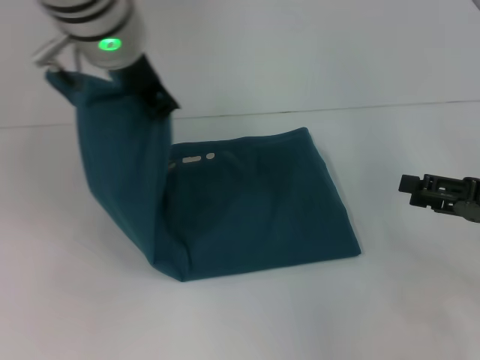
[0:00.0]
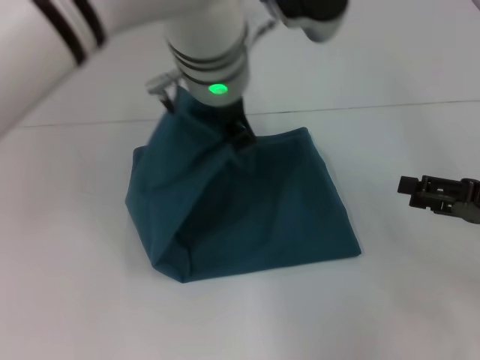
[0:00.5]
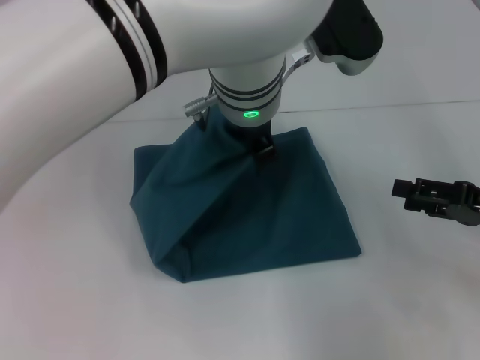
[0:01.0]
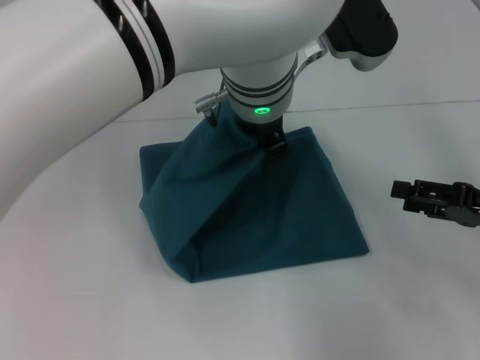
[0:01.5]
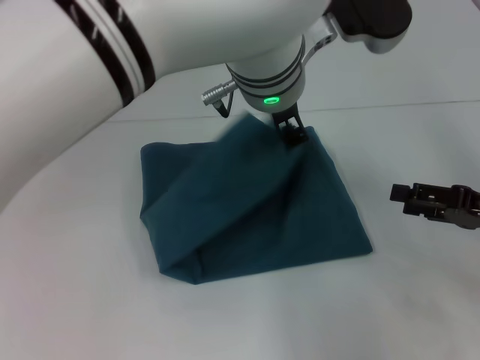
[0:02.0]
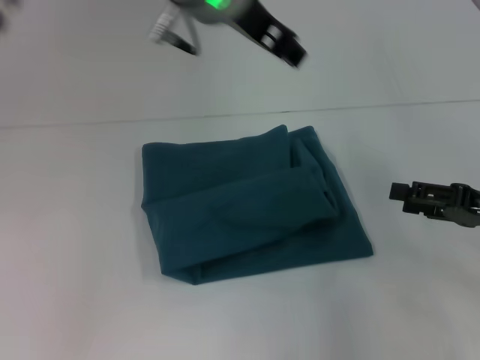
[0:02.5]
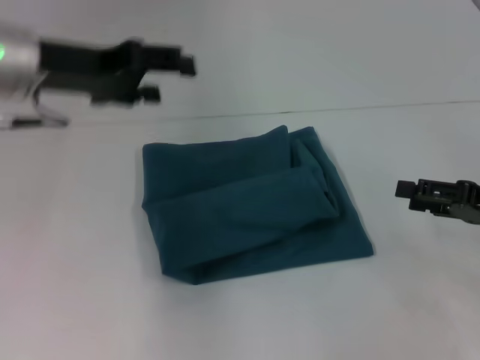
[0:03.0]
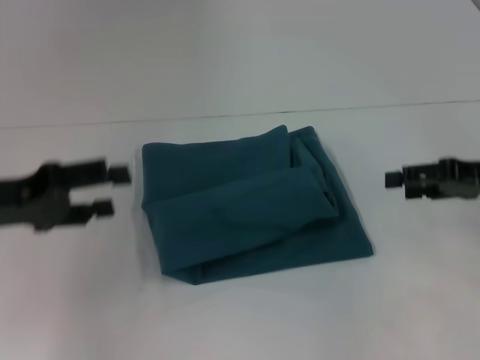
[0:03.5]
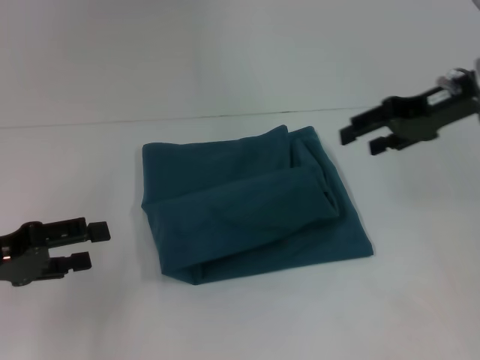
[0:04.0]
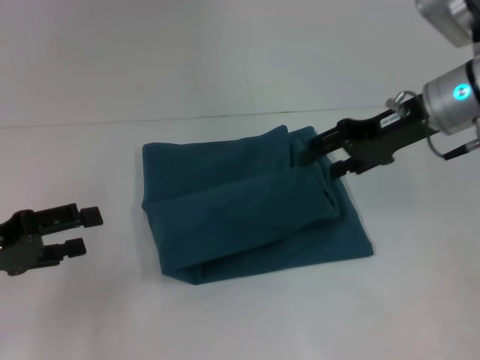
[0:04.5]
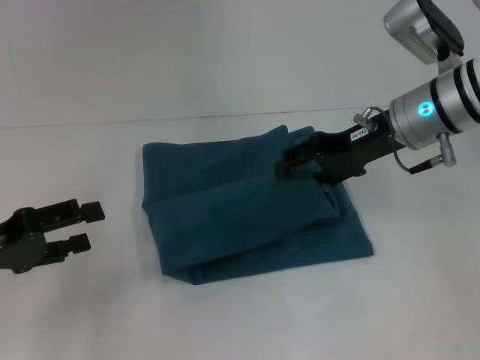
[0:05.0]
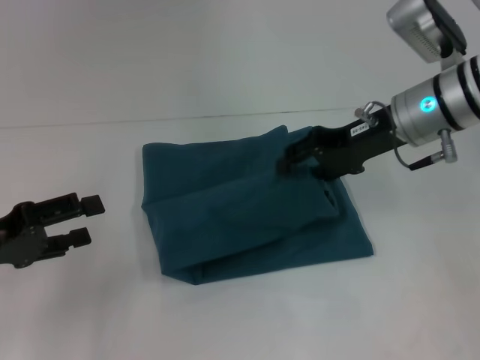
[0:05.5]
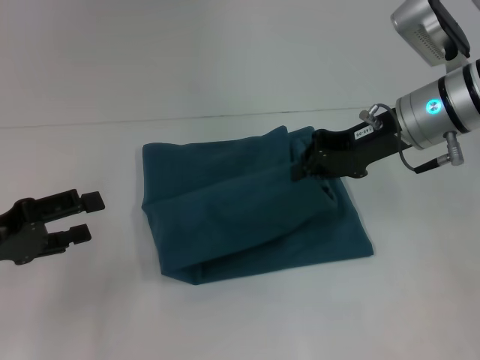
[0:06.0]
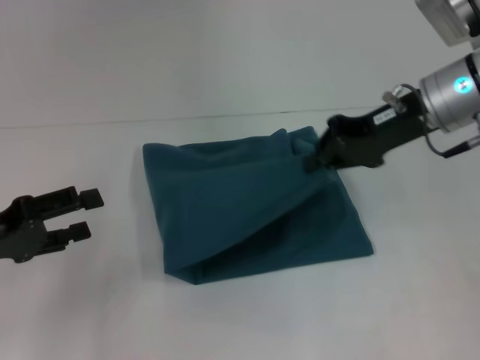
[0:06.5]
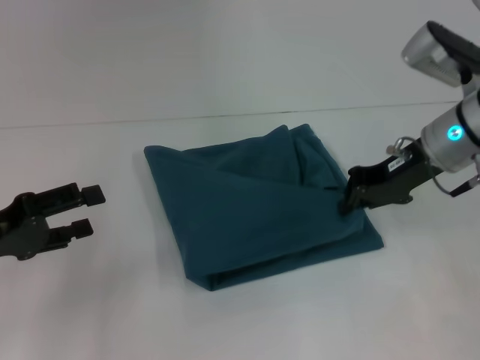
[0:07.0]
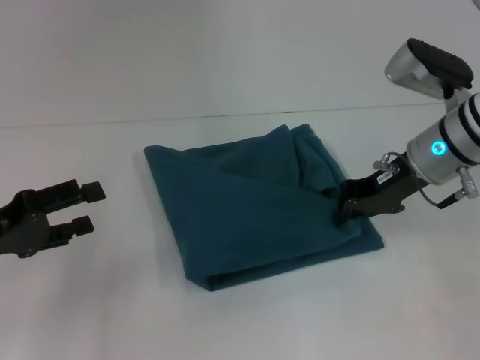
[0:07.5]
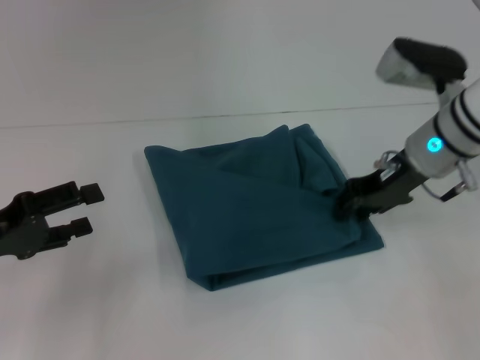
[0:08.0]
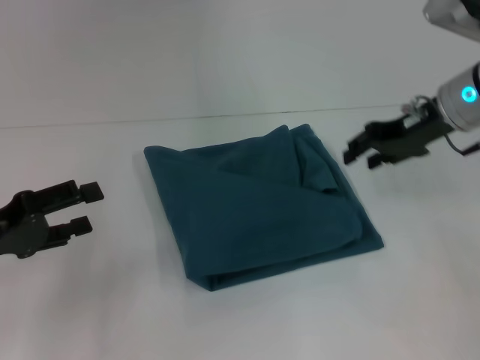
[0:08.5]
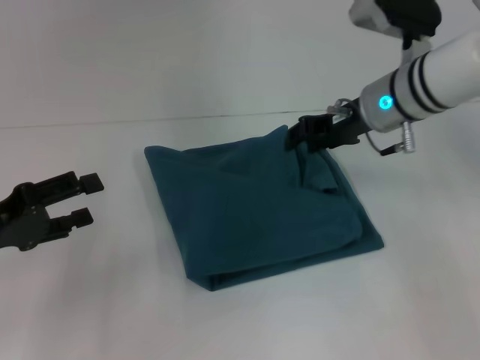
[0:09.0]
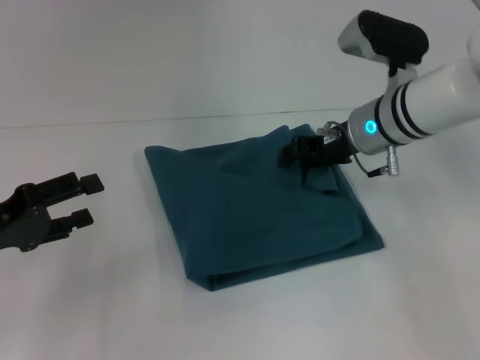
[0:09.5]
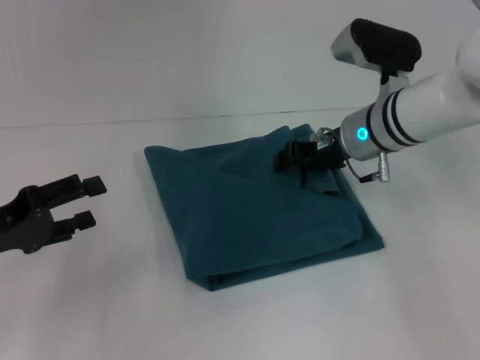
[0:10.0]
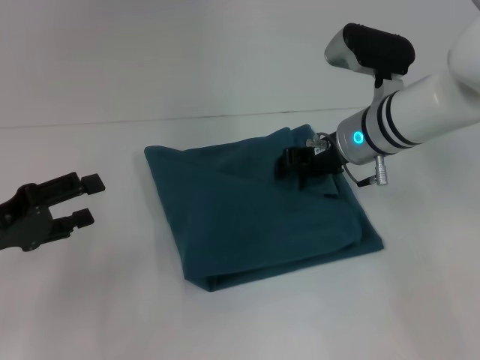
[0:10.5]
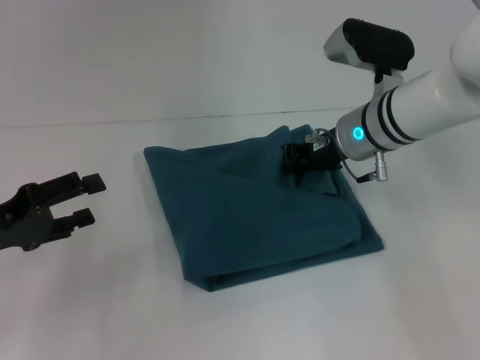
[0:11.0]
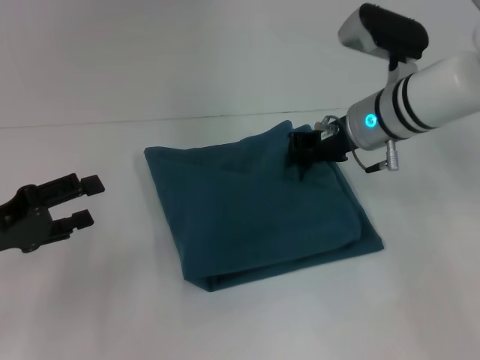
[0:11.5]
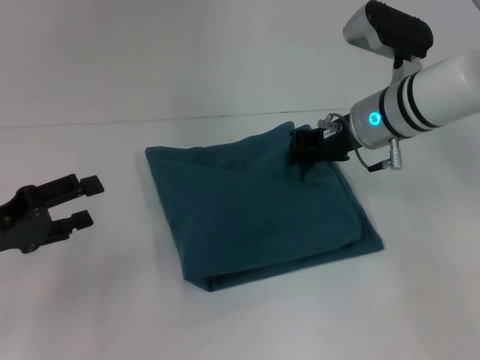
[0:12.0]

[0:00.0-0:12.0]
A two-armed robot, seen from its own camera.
Step, 0:00.0 to 0:02.0: Fold the clothes to the left.
0:00.0 to 0:02.0: The left gripper heads to the right, covering some 10 cm.
0:02.0 to 0:04.0: The right gripper travels upward, forward and to the left by roughly 20 cm; the left gripper heads to the left, covering approximately 35 cm, and opens up.
0:04.0 to 0:06.0: The right gripper travels to the left by roughly 5 cm, and closes.
0:08.0 to 0:10.0: The right gripper is displaced to the left by roughly 5 cm.
0:10.0 to 0:12.0: The right gripper closes up.

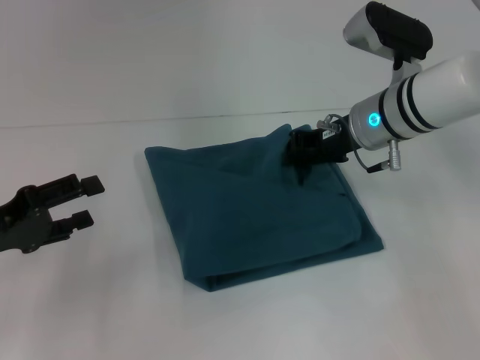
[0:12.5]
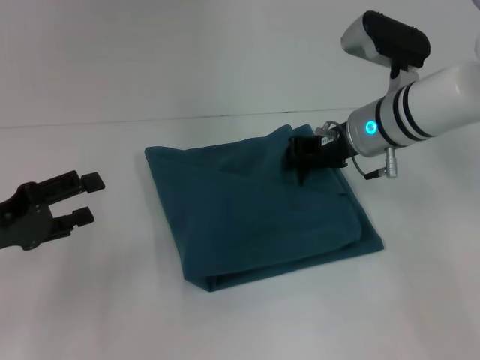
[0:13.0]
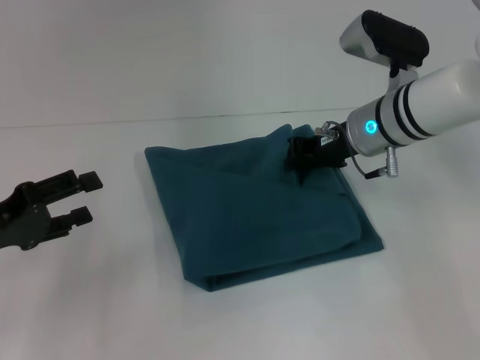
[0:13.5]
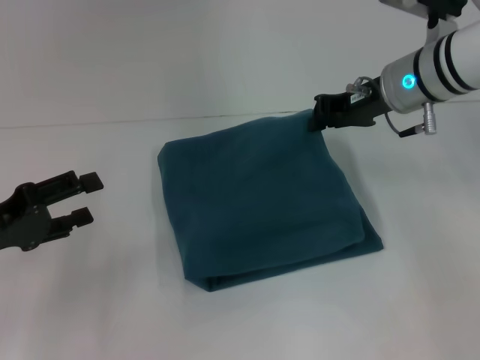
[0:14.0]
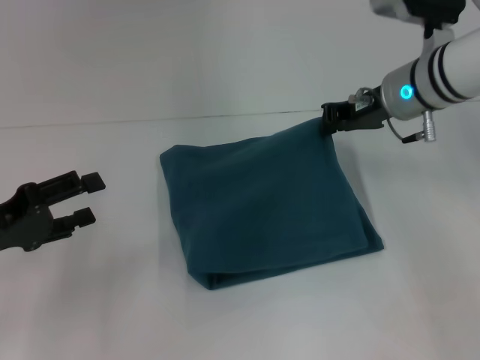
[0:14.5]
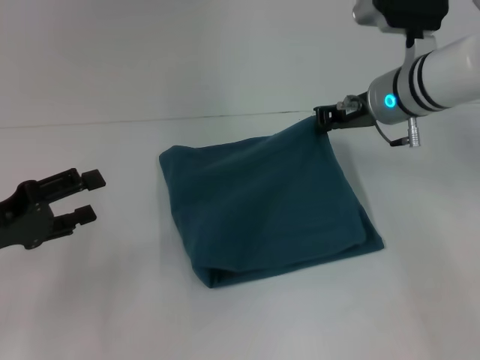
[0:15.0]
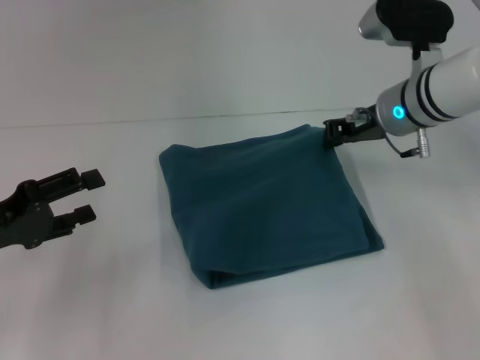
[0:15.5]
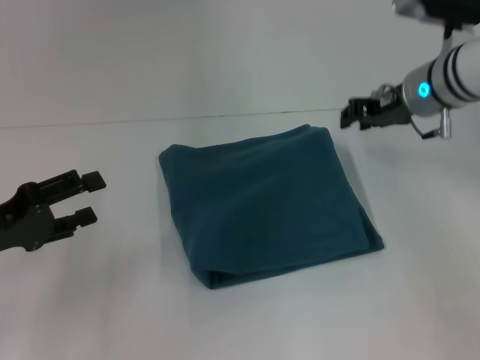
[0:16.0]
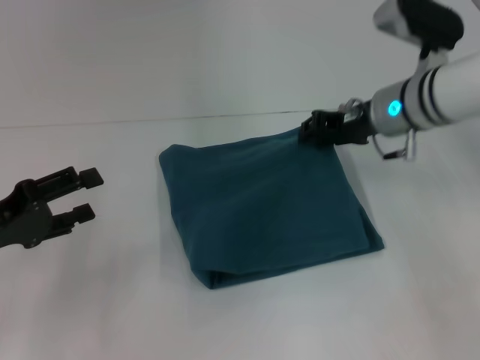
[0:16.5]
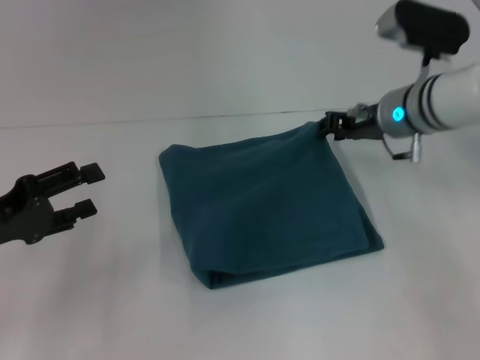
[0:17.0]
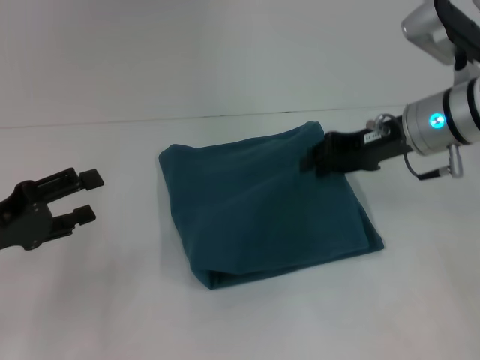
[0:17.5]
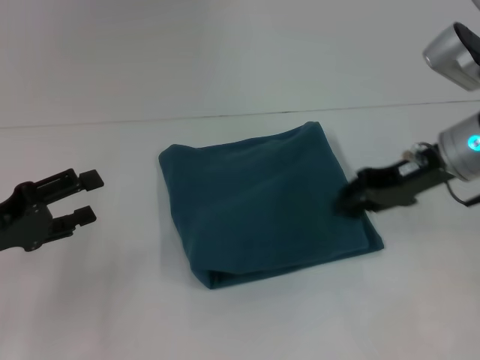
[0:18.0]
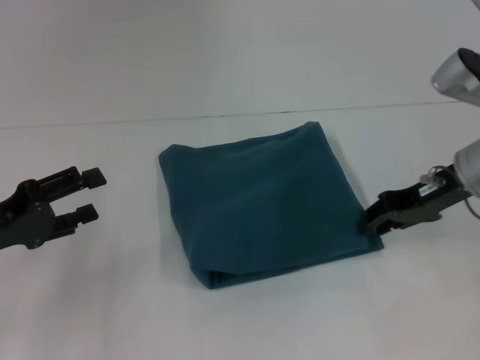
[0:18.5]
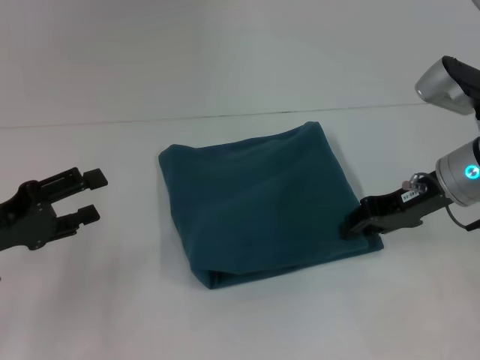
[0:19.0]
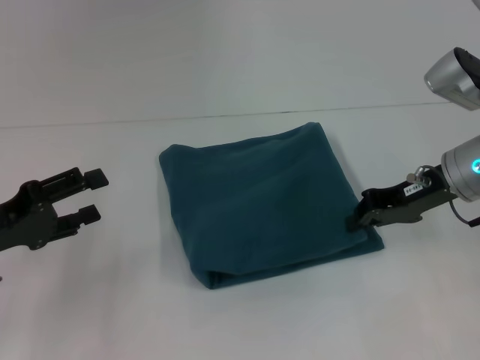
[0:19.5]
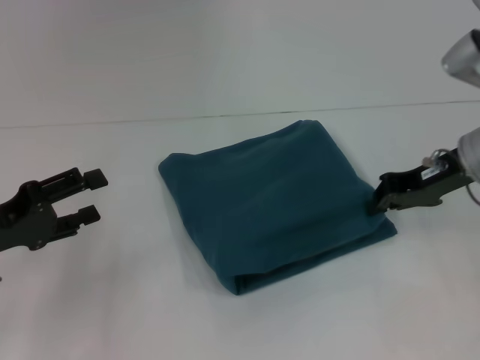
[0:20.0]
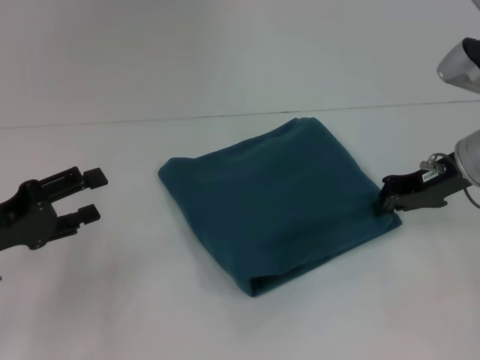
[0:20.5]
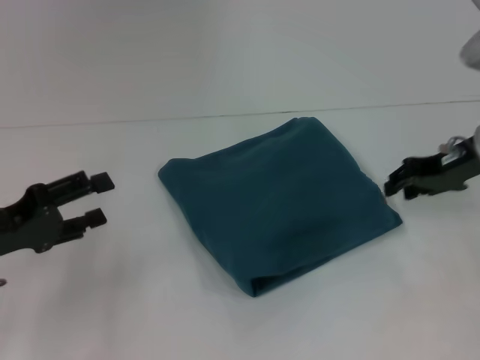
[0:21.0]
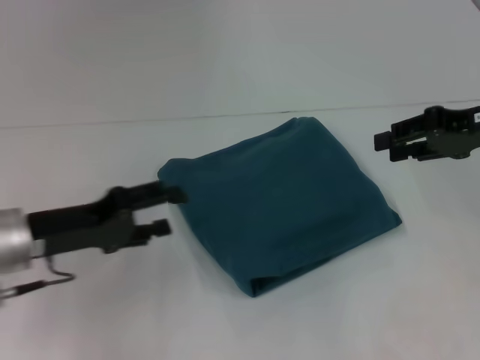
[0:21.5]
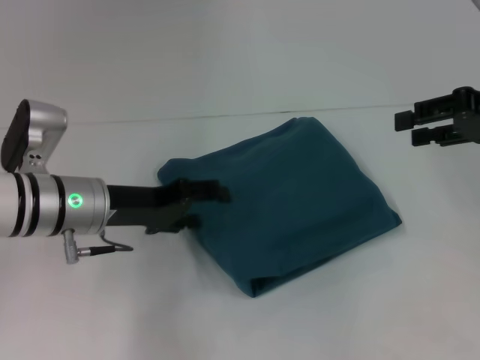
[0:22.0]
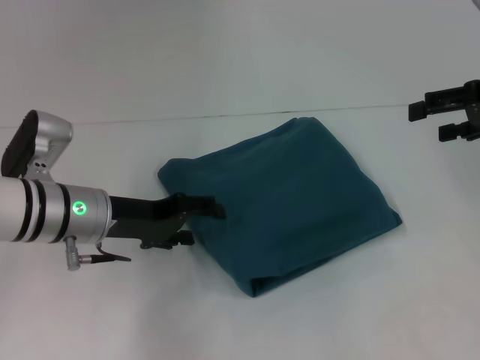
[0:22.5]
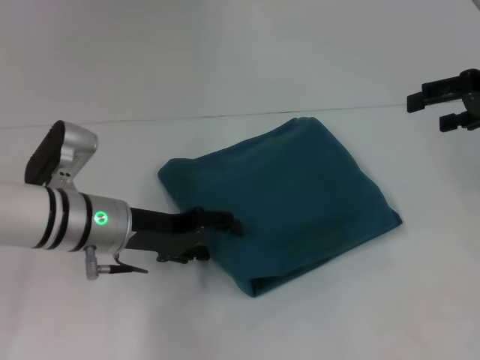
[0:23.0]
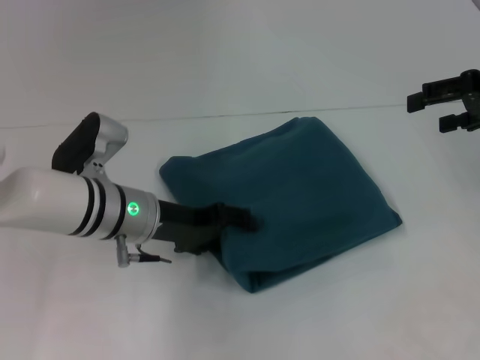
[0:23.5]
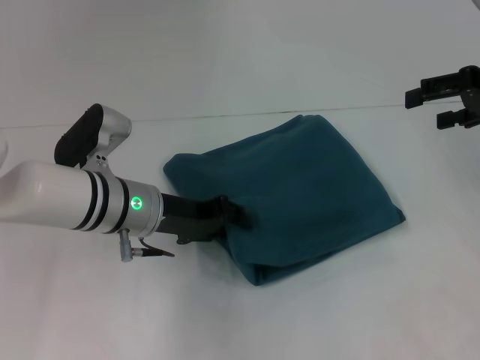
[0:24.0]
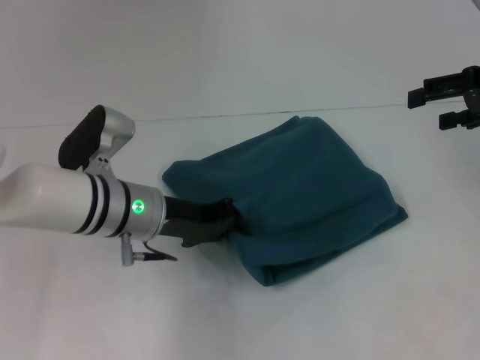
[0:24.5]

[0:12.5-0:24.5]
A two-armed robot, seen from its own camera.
0:12.5 to 0:14.5: The grippers move only a little.
0:14.5 to 0:16.5: The grippers make only small movements.
0:16.5 to 0:18.5: The right gripper is displaced to the right and backward by about 10 cm.
0:18.5 to 0:20.5: There are only small adjustments of the grippers.
0:20.5 to 0:22.5: The left gripper travels to the right and forward by about 15 cm. The right gripper heads upward and to the right, covering roughly 10 cm, and opens up.
0:22.5 to 0:24.5: The left gripper is displaced to the right by approximately 5 cm, and closes its fingers.

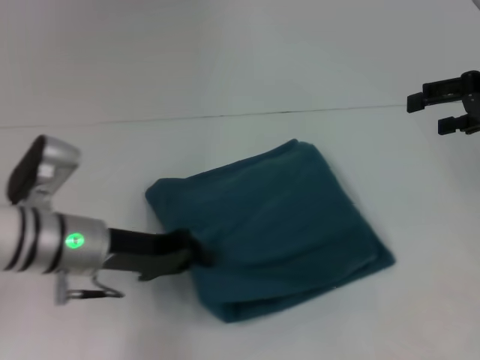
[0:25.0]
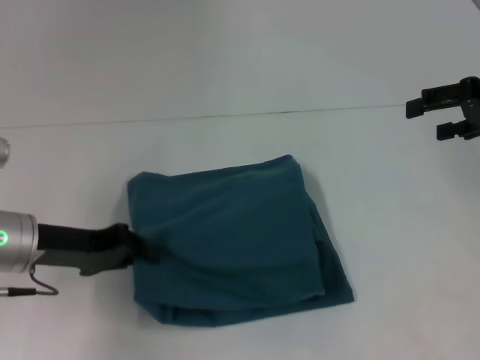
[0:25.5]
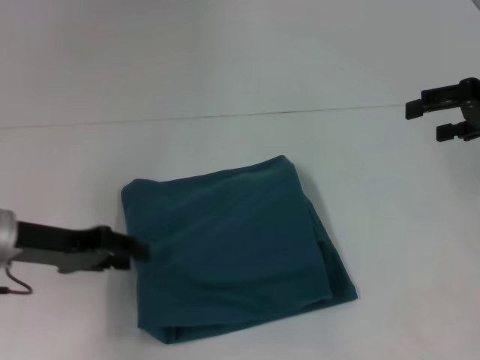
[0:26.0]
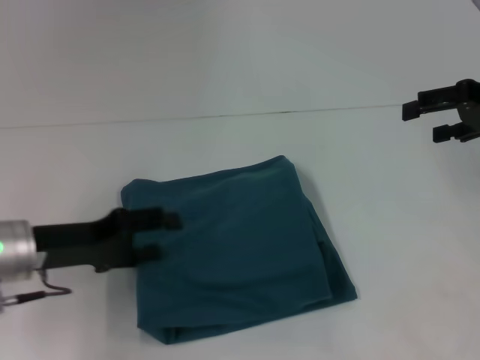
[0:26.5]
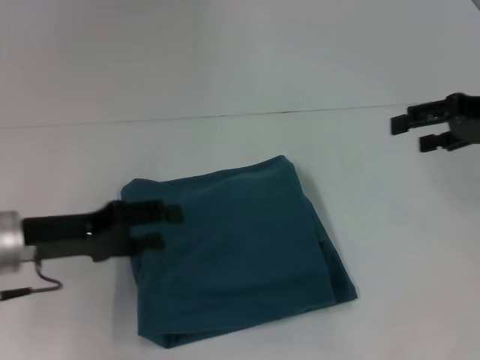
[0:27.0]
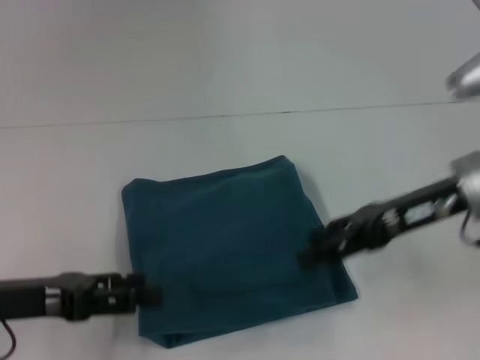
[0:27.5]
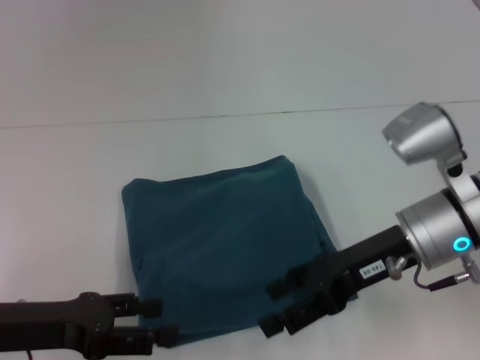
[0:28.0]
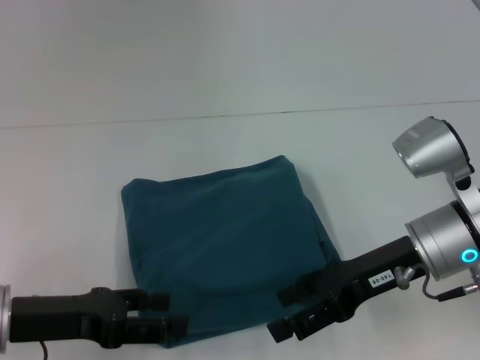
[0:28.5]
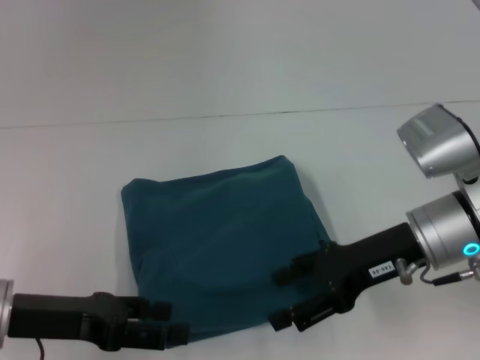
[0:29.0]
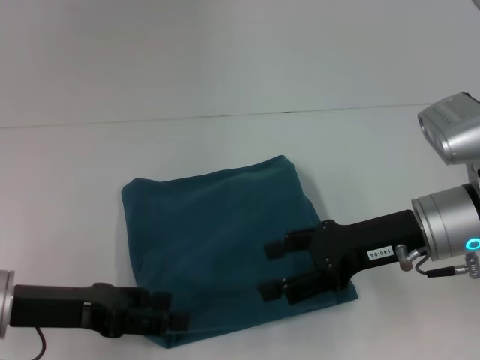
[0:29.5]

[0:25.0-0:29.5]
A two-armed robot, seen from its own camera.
0:25.0 to 0:27.0: The left gripper is displaced to the left by roughly 5 cm, and opens up.
0:27.0 to 0:29.5: The right gripper goes about 15 cm to the left, downward and backward.
